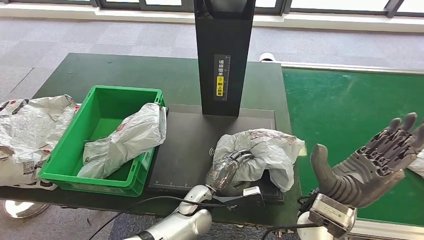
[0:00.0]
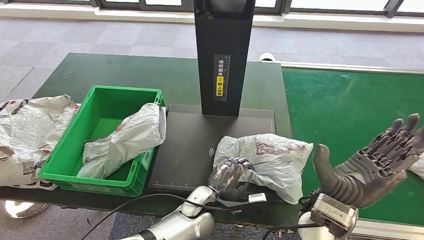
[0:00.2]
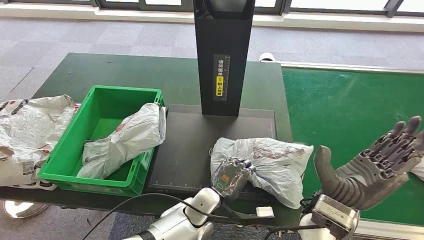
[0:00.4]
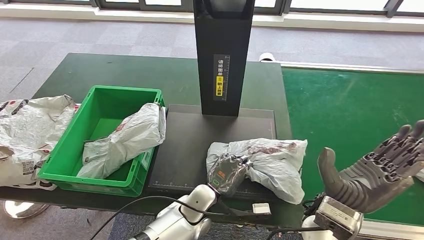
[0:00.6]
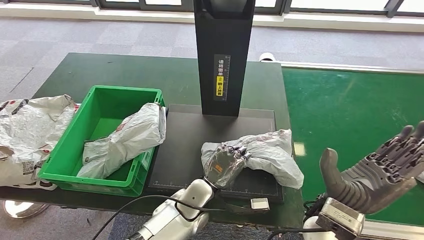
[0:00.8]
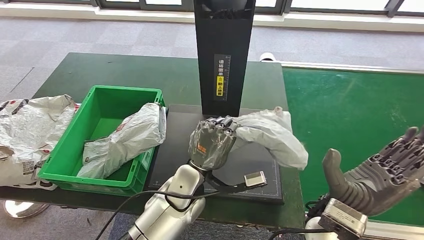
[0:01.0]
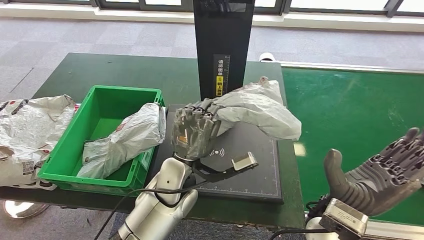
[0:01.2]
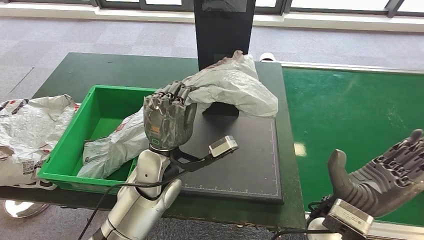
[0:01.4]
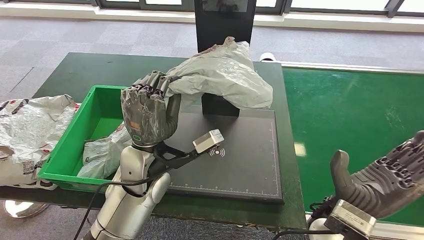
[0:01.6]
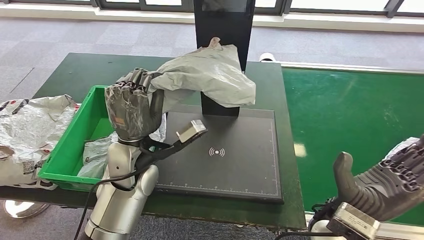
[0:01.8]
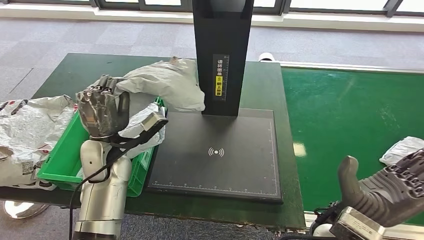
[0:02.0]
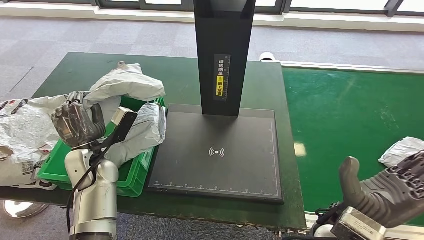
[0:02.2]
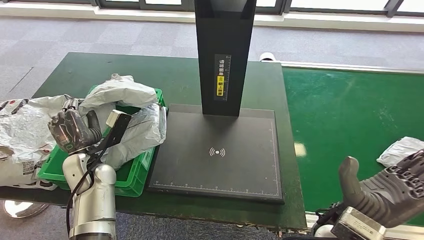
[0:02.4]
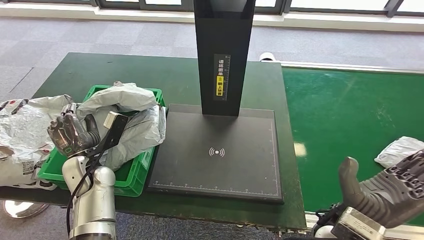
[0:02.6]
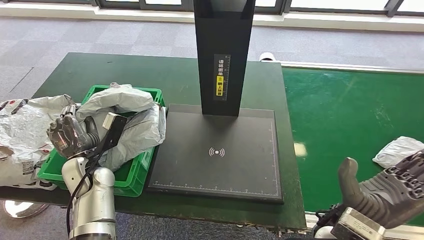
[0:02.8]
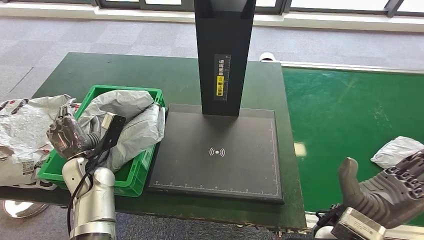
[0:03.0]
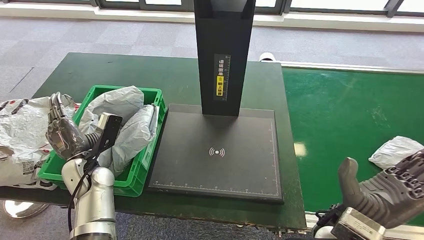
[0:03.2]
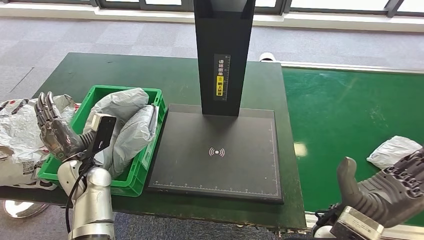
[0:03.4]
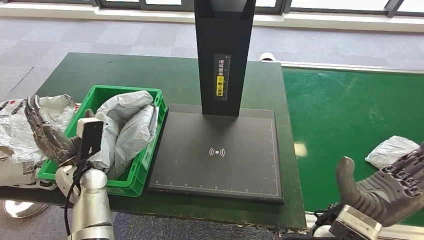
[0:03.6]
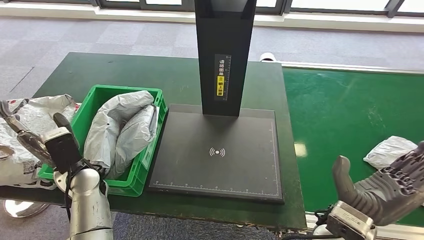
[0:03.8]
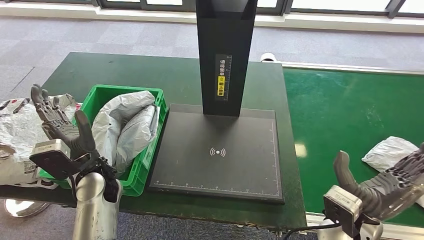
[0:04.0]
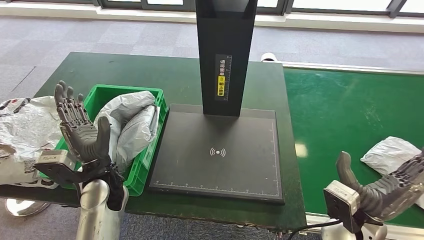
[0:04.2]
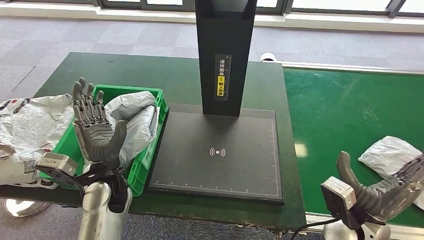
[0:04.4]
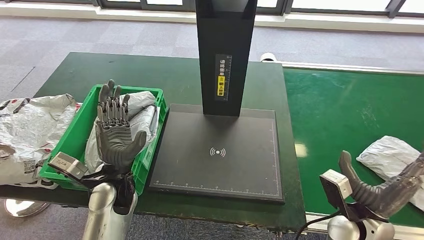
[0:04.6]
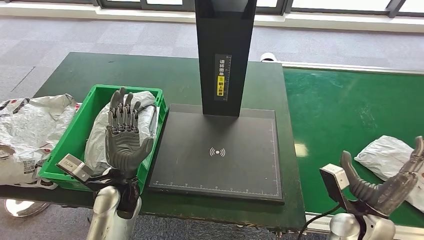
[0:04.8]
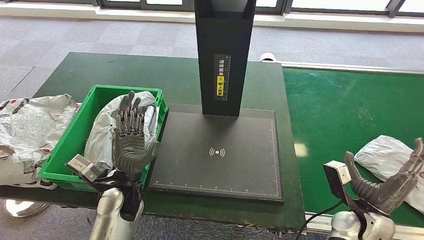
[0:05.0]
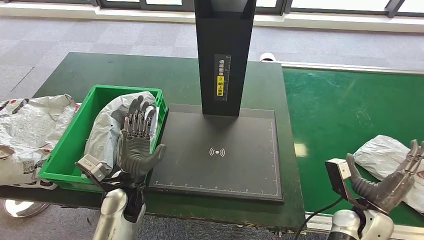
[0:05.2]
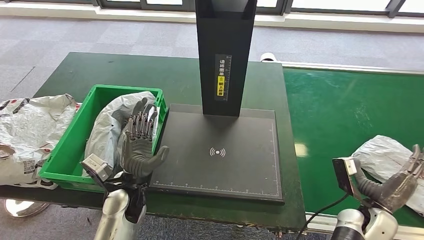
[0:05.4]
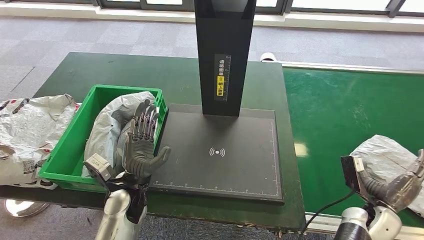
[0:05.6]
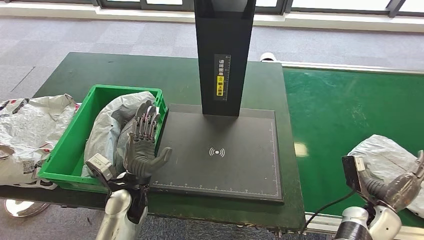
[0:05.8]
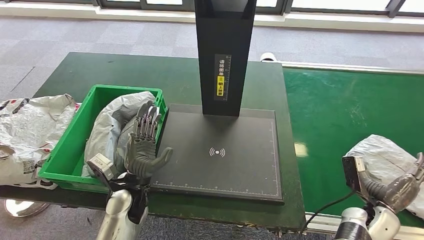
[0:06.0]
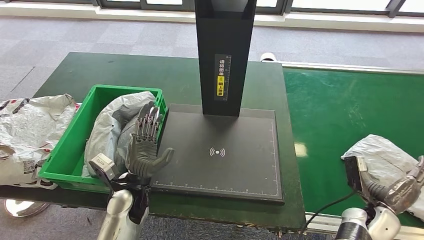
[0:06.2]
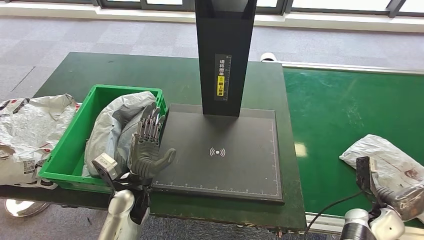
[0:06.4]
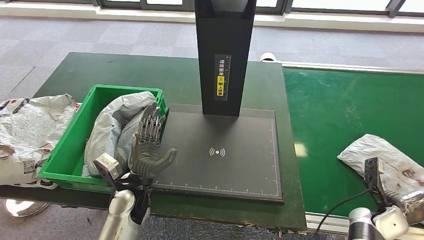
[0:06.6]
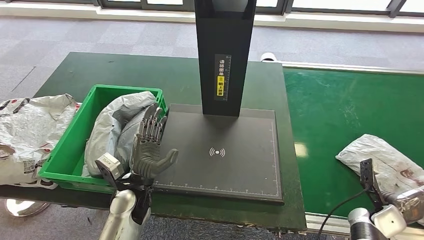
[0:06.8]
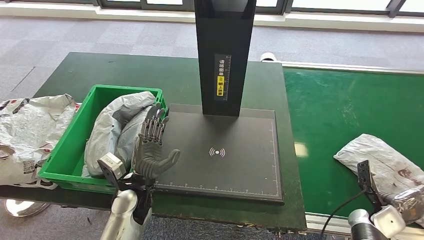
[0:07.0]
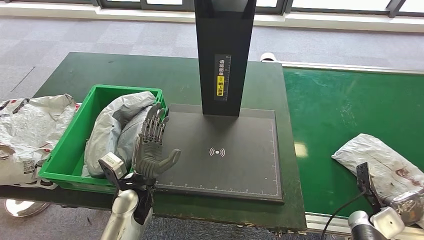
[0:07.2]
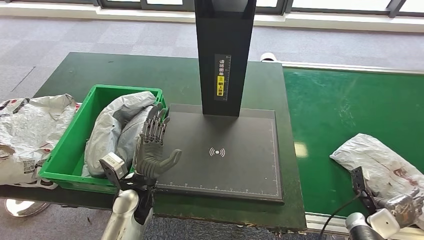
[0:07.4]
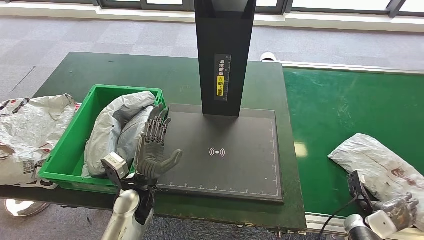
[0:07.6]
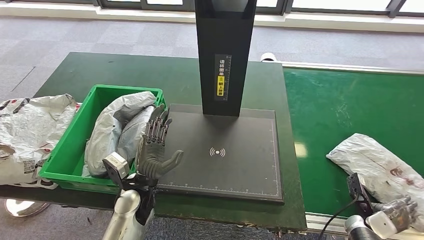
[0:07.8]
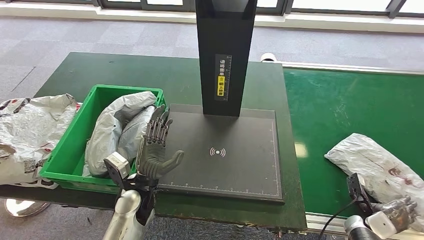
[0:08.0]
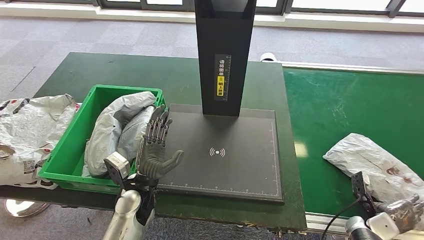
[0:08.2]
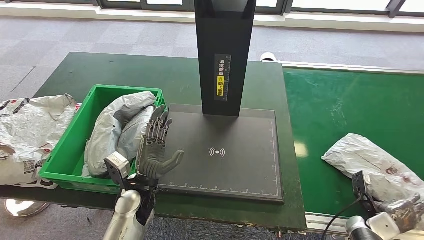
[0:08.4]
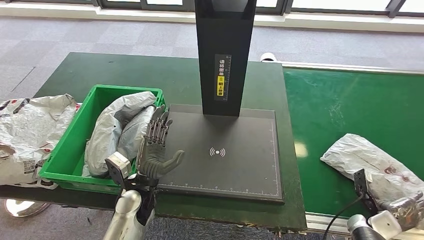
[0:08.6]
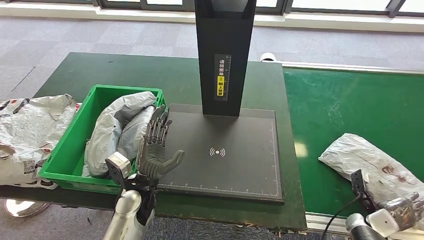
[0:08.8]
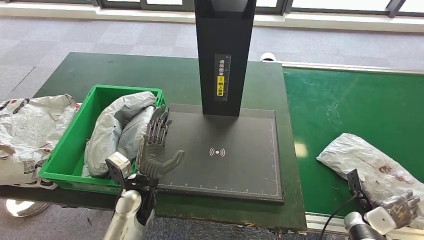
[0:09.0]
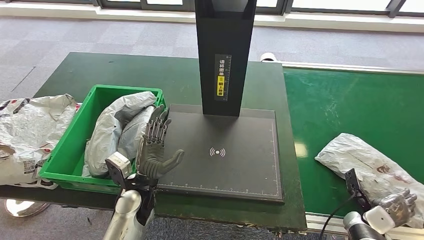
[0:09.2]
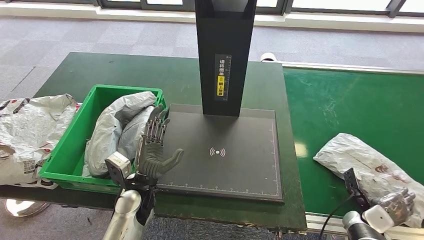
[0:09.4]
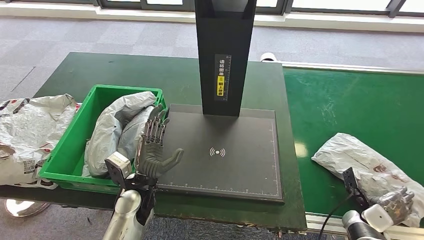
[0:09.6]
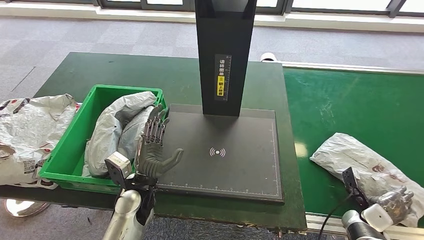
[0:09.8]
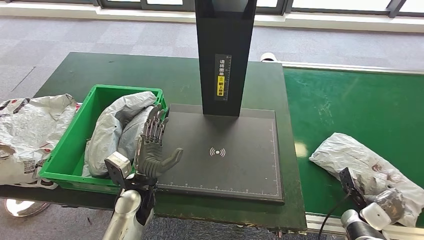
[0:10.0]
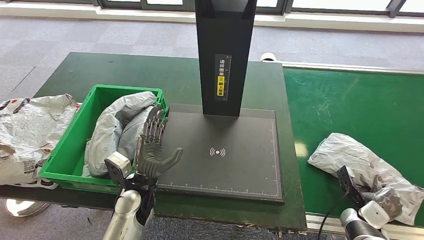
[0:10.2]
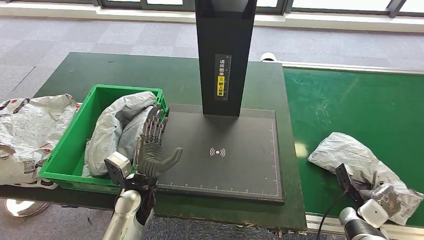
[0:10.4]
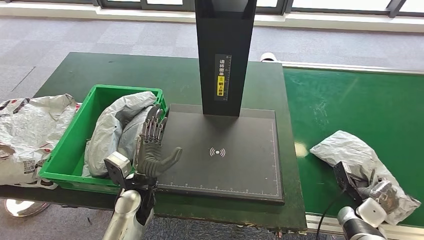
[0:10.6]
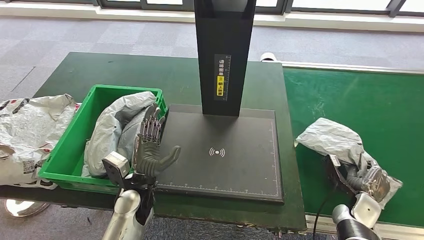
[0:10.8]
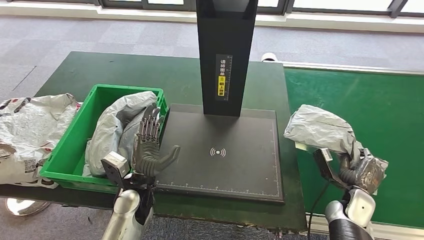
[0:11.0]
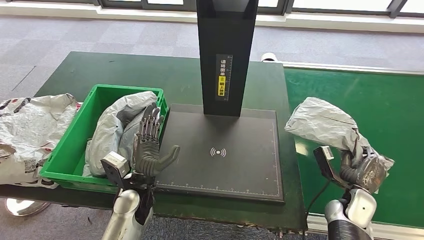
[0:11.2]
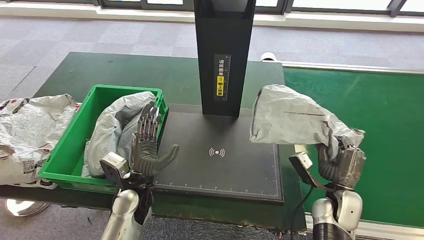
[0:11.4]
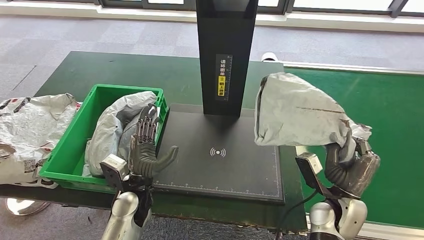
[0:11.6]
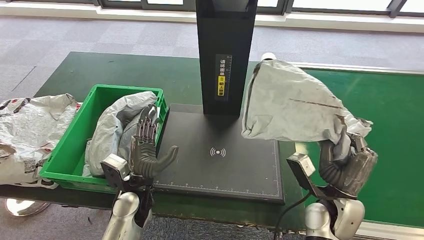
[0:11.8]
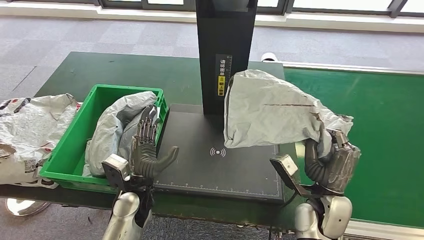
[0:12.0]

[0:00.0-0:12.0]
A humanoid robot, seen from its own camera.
Step, 0:00.2 to 0:01.0: Pick up the parcel from the inbound machine.
Step, 0:01.2 to 0:04.6: Place the parcel into the delivery box.
Step, 0:04.8 to 0:11.6: Pick up the parcel from the conveyor belt.
0:03.0 to 0:04.4: The right hand goes approximately 5 cm to the right. The left hand moves to the right, some 10 cm.
0:04.4 to 0:06.0: The right hand goes roughly 15 cm to the right and downward, while the left hand travels downward by about 5 cm.
0:06.0 to 0:07.6: The right hand shifts about 5 cm downward.
0:07.6 to 0:10.4: The hands stay close to where they were, moving slightly.
0:10.4 to 0:12.0: The right hand goes approximately 25 cm to the left and upward.

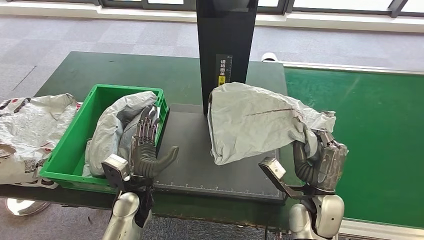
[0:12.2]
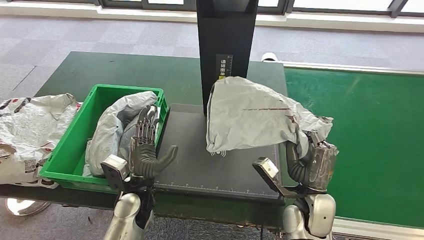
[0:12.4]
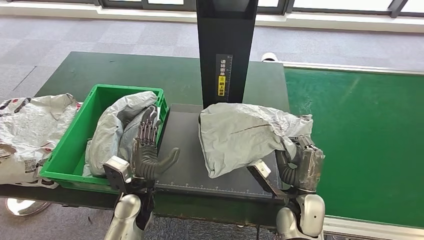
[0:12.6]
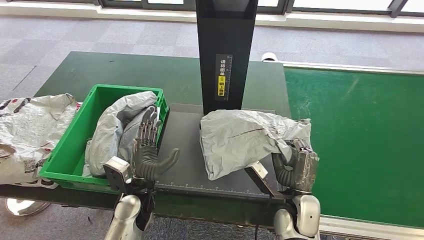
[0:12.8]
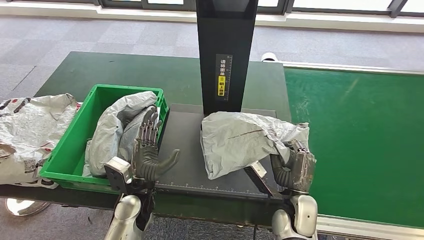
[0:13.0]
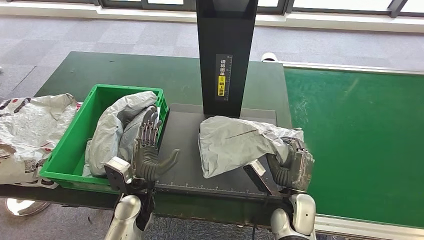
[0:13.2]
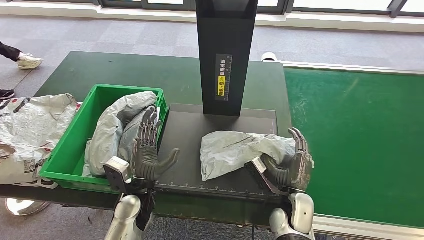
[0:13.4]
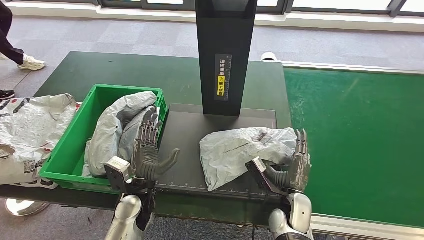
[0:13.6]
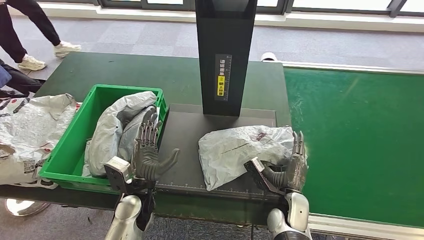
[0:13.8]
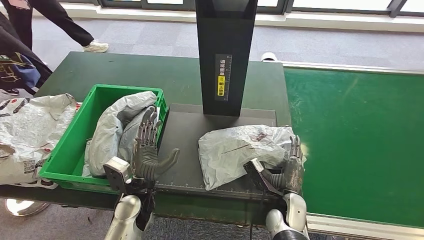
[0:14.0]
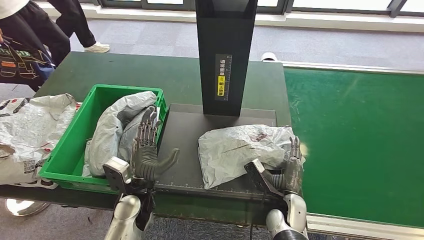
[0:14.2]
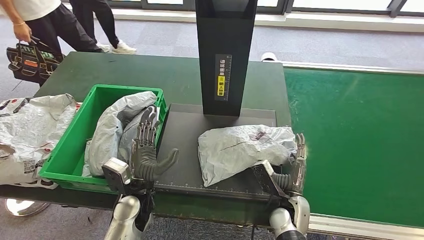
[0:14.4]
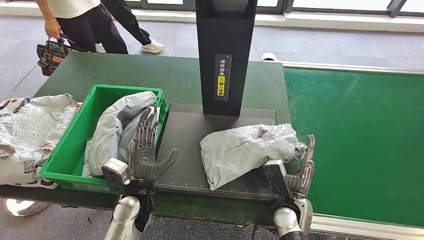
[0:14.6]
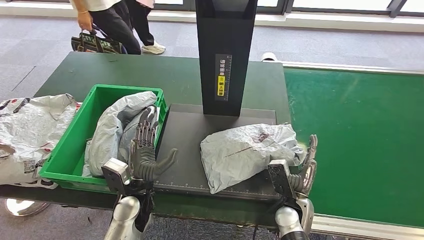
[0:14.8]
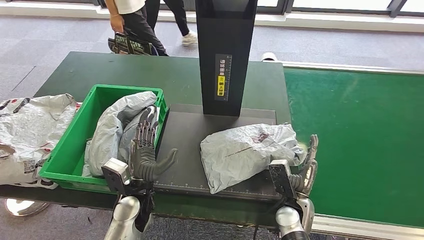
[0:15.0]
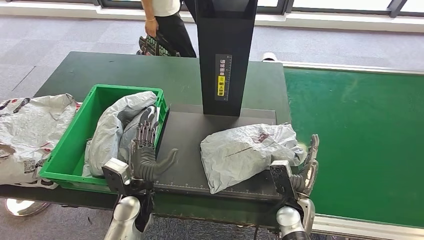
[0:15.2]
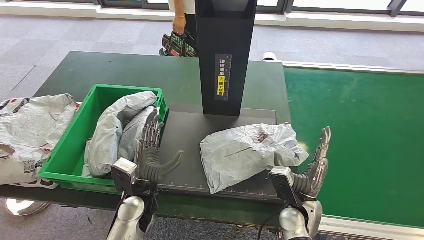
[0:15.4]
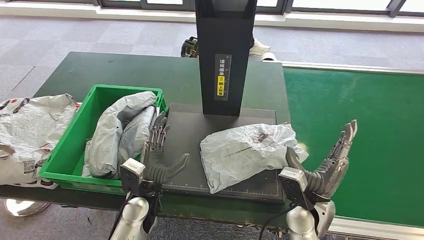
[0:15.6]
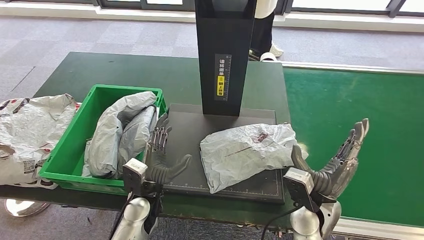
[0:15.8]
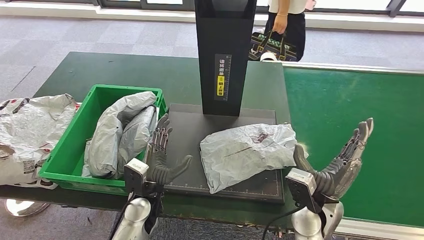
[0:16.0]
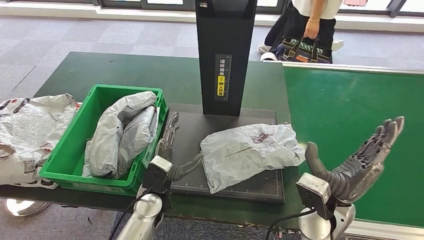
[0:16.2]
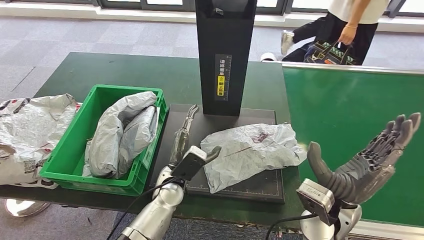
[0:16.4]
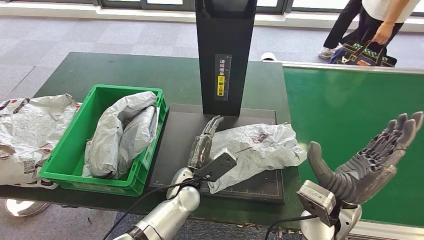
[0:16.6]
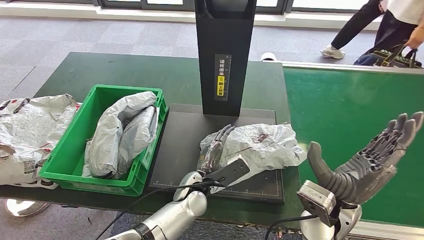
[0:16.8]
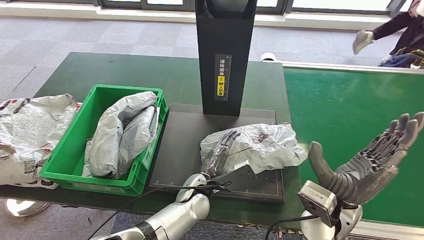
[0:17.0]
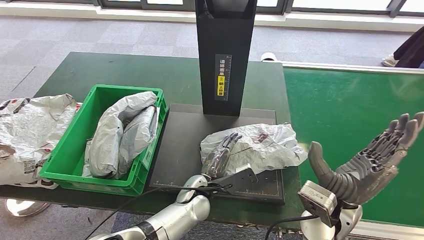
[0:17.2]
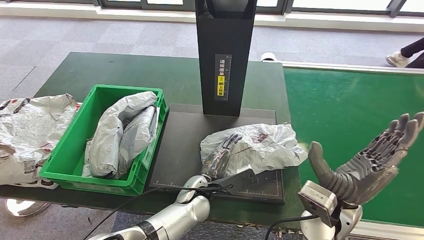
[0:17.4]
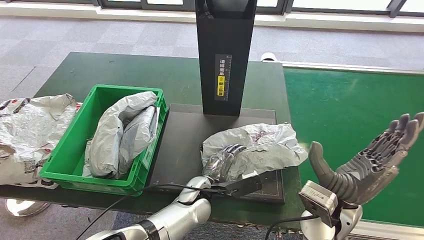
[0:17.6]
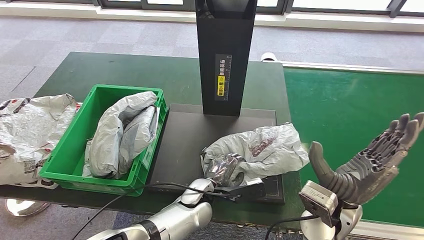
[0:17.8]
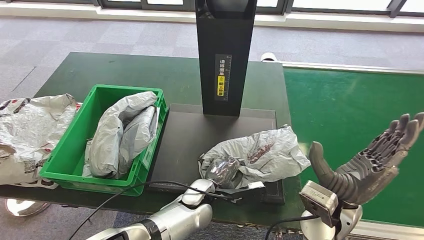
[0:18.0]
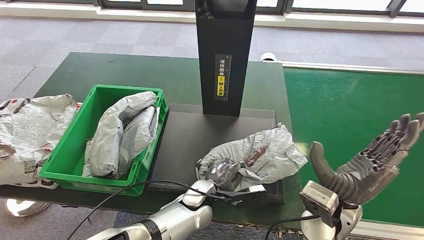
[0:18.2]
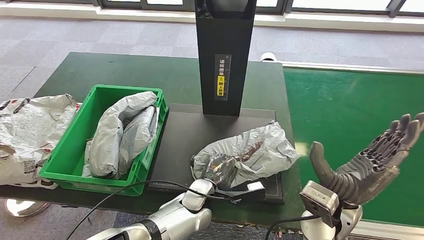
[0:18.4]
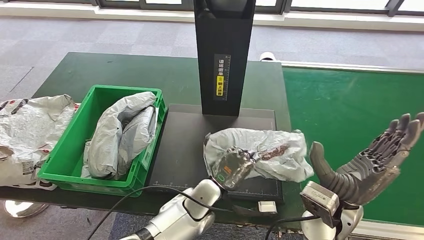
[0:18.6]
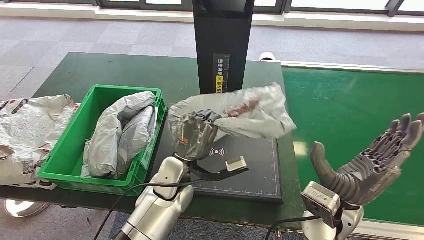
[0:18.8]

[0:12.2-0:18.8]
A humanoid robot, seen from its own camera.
Step, 0:12.2 to 0:16.6: Place the parcel onto the inbound machine.
0:15.4 to 0:17.2: The left hand is displaced to the right by about 10 cm. Meanwhile the right hand is displaced upward by some 10 cm.
